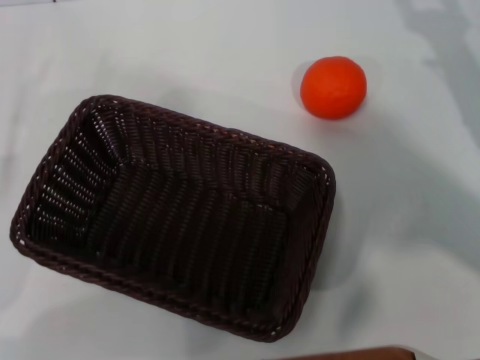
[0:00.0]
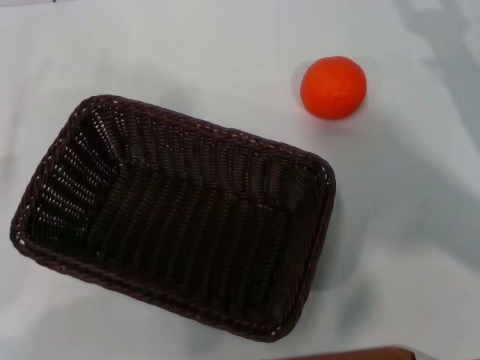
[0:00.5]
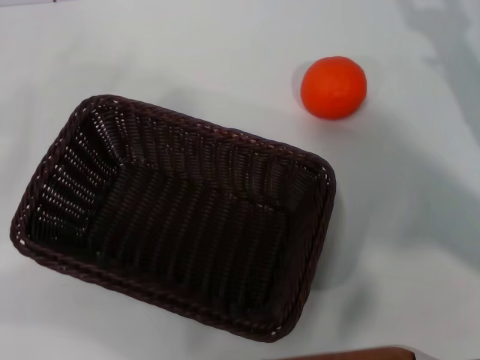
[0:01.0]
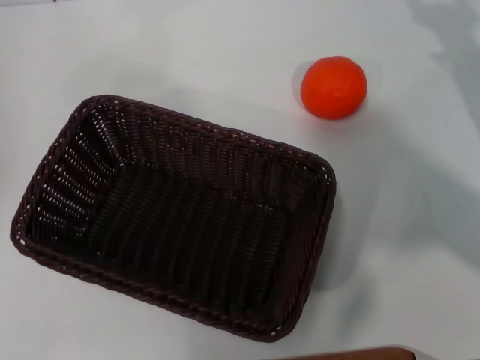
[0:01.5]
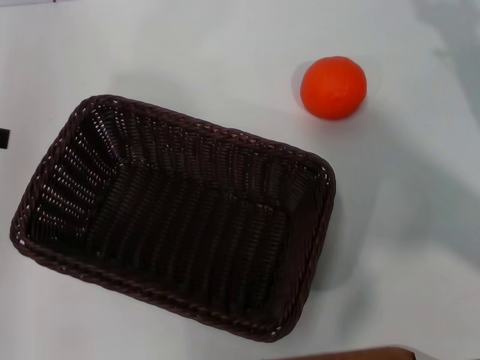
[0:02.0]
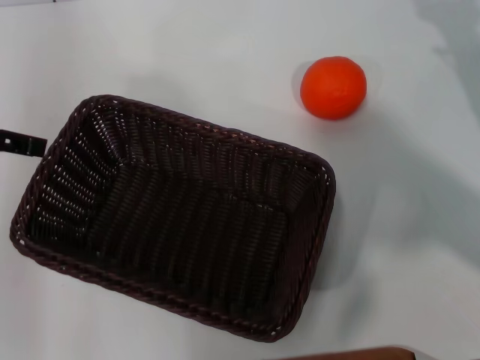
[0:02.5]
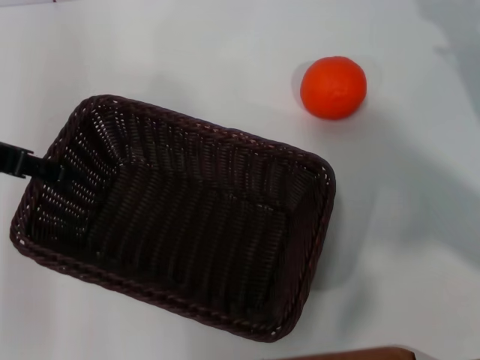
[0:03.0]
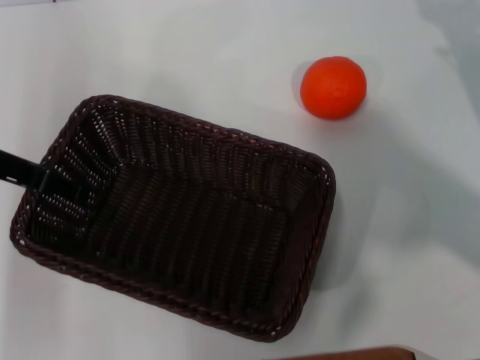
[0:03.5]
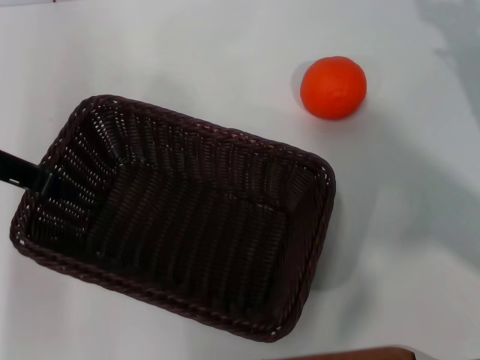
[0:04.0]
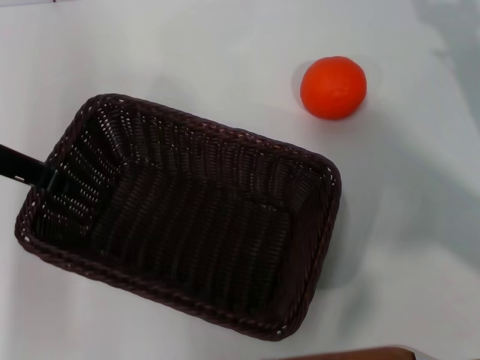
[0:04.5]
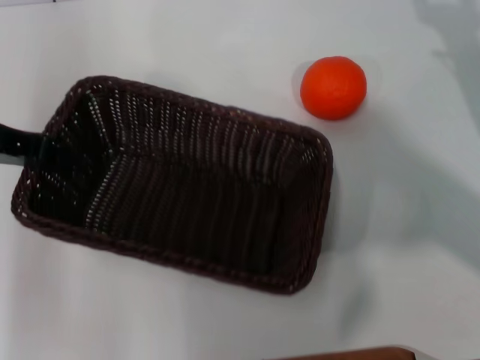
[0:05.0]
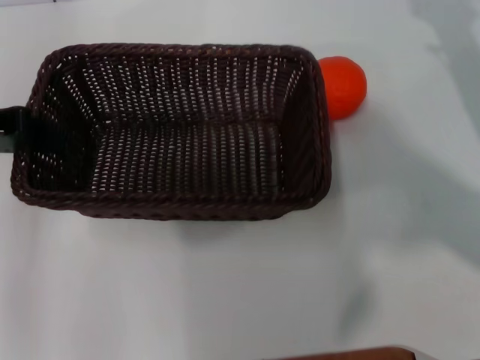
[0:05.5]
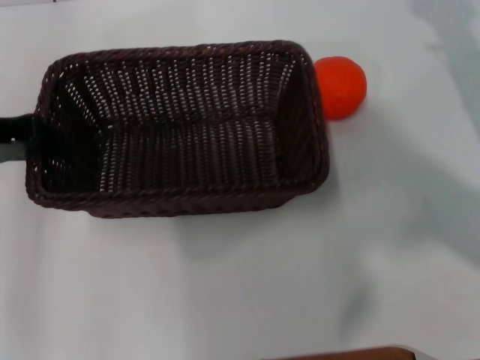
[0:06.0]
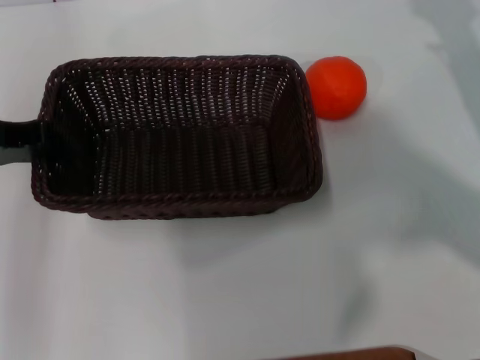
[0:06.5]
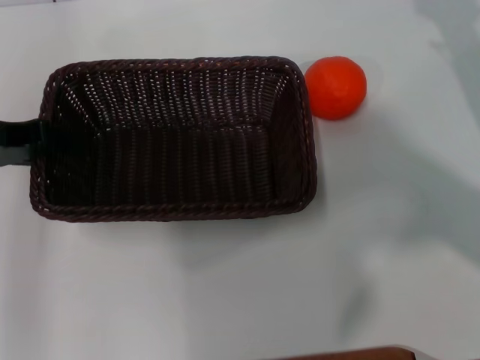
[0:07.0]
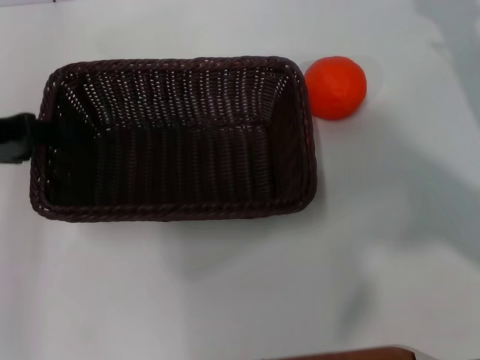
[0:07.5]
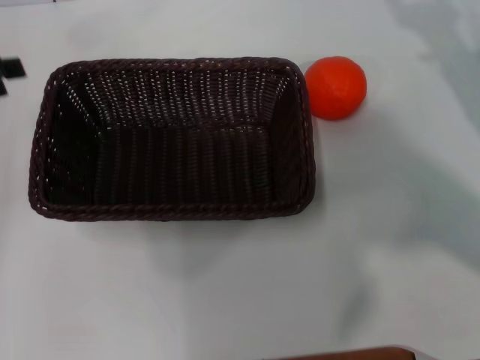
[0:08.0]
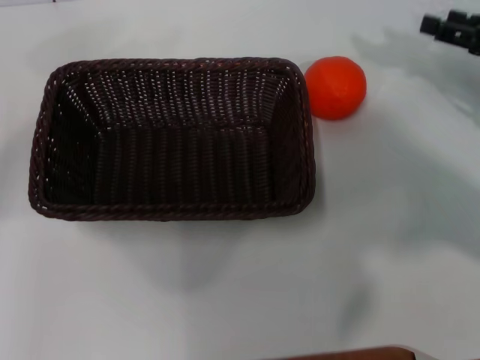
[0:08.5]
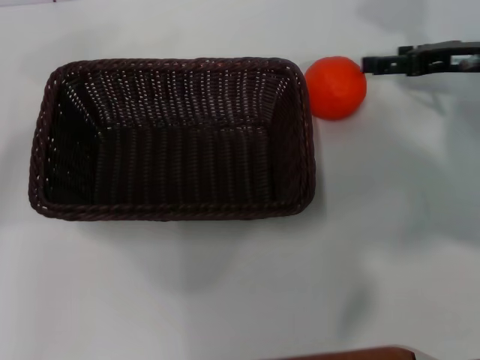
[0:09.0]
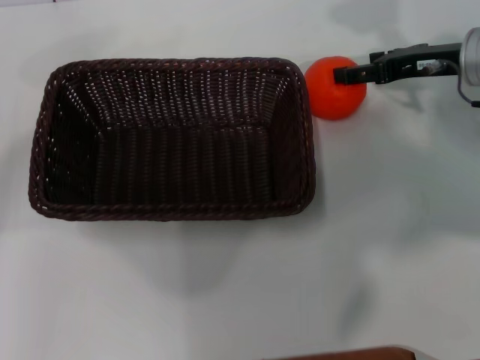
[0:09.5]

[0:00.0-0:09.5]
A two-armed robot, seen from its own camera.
Task of the whole recording: the left gripper pick up the black basket and place it horizontally in the middle of the table, the right gripper pick up the orange and place it into the black basket.
Step, 0:00.0 to 0:05.0: Pick up the dark basket with the left gripper.
Step, 0:05.5 to 0:07.5: Place the dark basket in the center of view with the left gripper.
0:00.0 to 0:02.0: The left gripper heads upward and forward, covering roughly 20 cm.
0:02.0 to 0:04.0: The left gripper is displaced downward and to the right by some 10 cm, and closes up.
0:04.0 to 0:05.5: The left gripper closes.
0:05.5 to 0:07.5: The left gripper opens.
0:07.5 to 0:09.5: The left gripper travels to the left by approximately 10 cm, while the right gripper is displaced to the left and forward by about 10 cm.

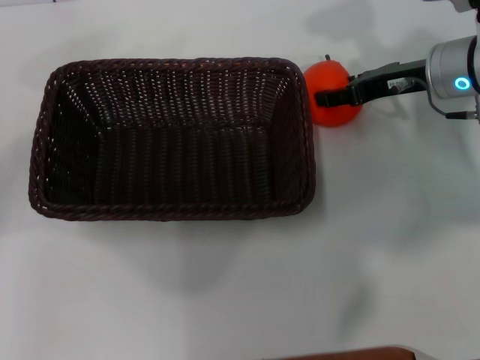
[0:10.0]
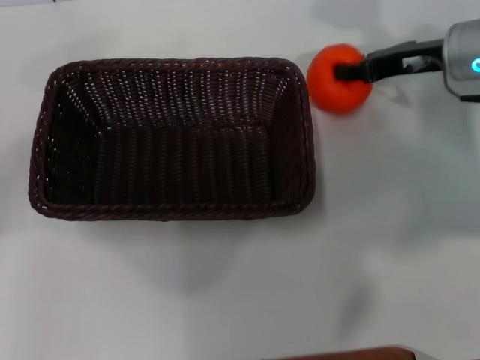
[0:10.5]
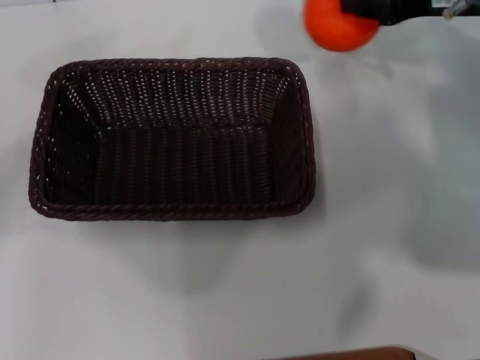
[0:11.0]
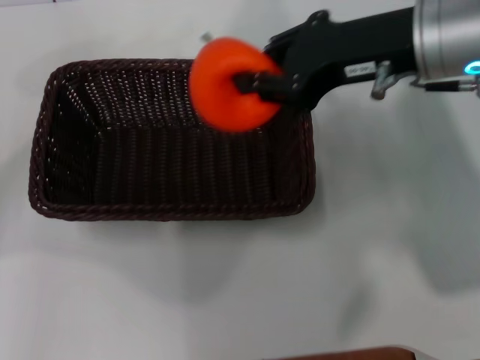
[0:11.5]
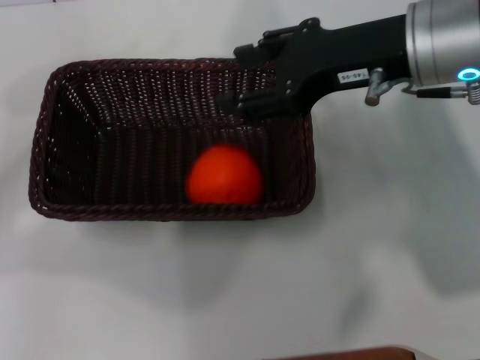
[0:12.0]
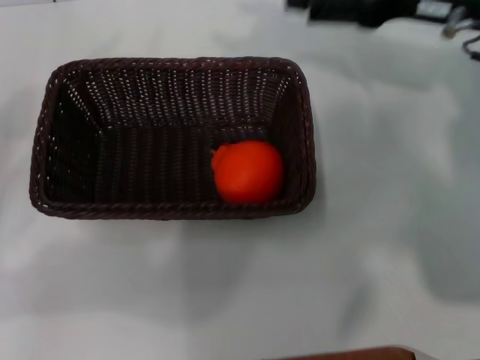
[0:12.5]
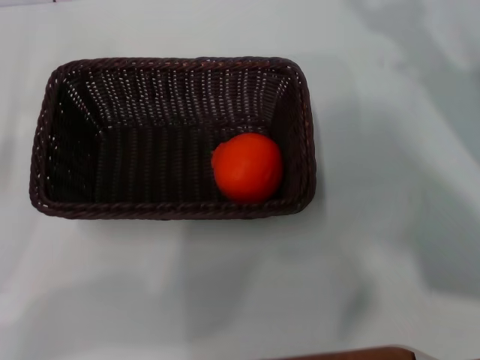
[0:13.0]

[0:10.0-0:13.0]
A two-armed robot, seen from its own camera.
Task of the whole recording: the left gripper pick up the black basket and place it horizontally in the middle of the table, the right gripper pick up the orange and place it into the black basket.
Step, 0:11.0 to 0:12.0: Place the orange into the dark basket with the right gripper.
0:10.0 to 0:11.5: The right gripper heads upward, to the left and backward, covering approximately 15 cm, and closes up.
0:11.5 to 0:13.0: The left gripper heads downward and backward, covering some 10 cm; the right gripper goes about 20 cm to the right and downward, and opens its fingers.
